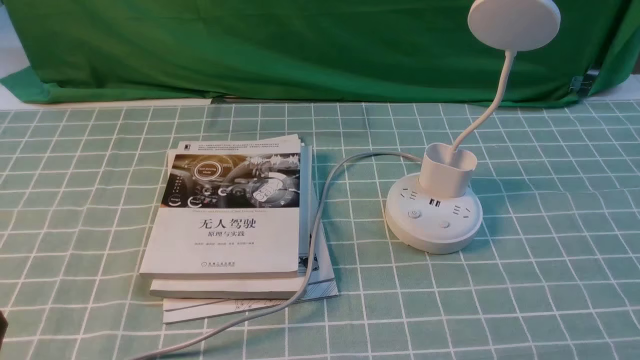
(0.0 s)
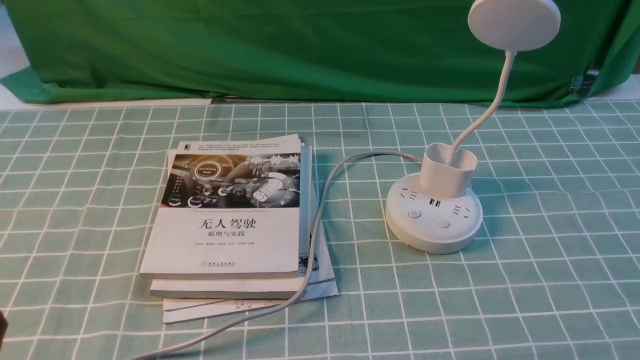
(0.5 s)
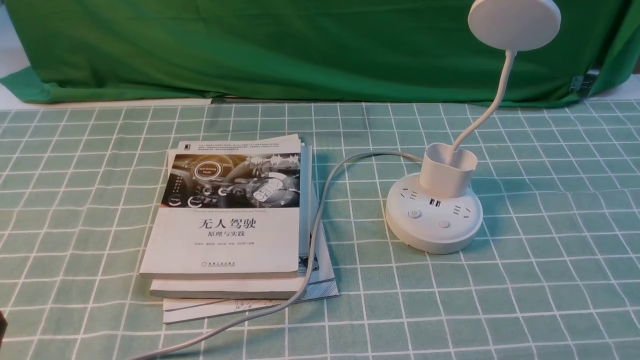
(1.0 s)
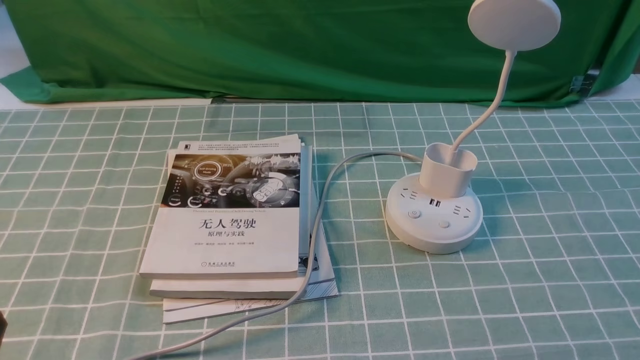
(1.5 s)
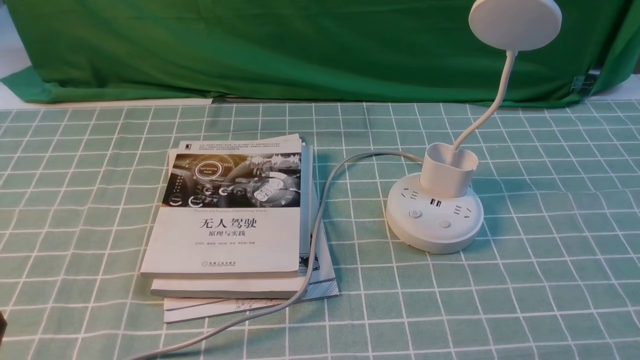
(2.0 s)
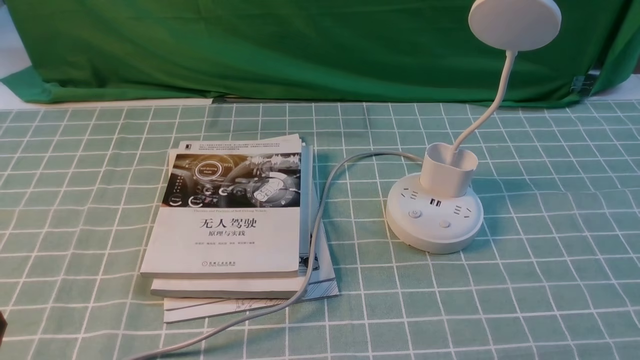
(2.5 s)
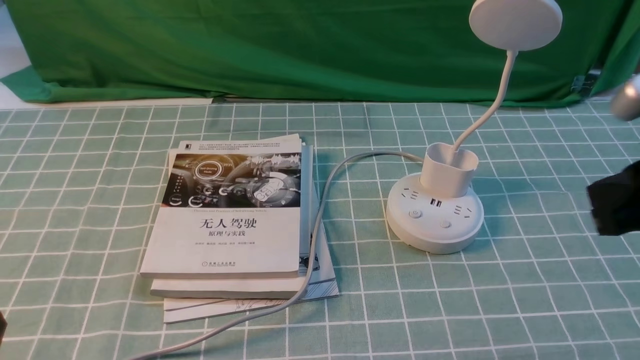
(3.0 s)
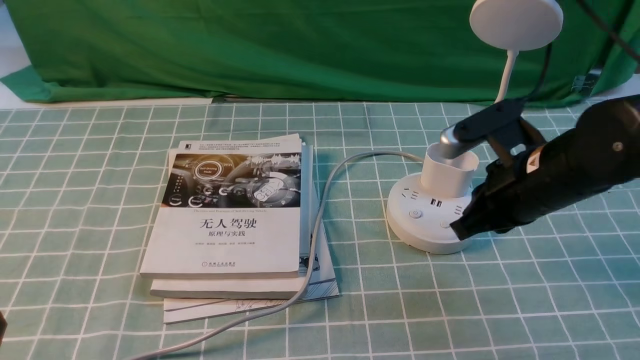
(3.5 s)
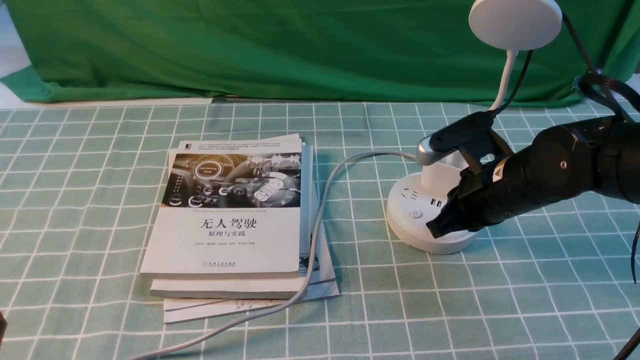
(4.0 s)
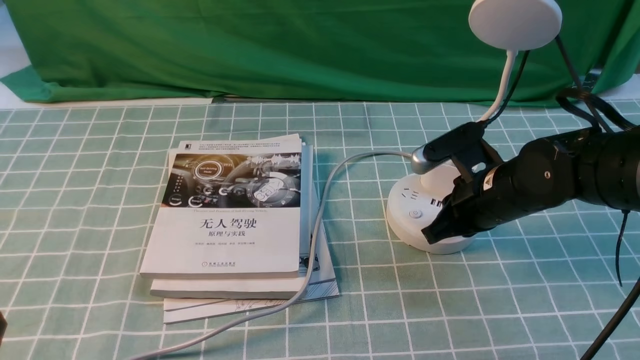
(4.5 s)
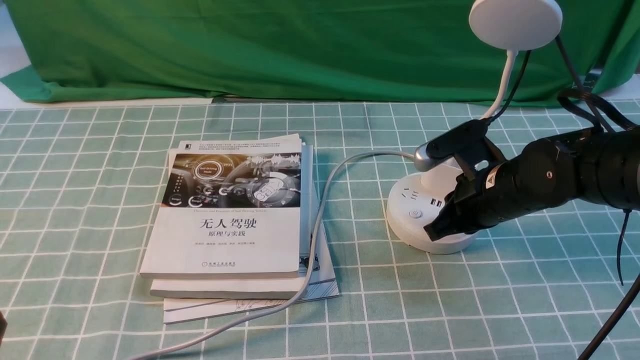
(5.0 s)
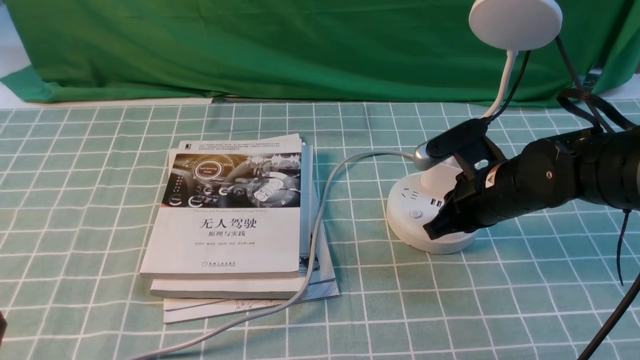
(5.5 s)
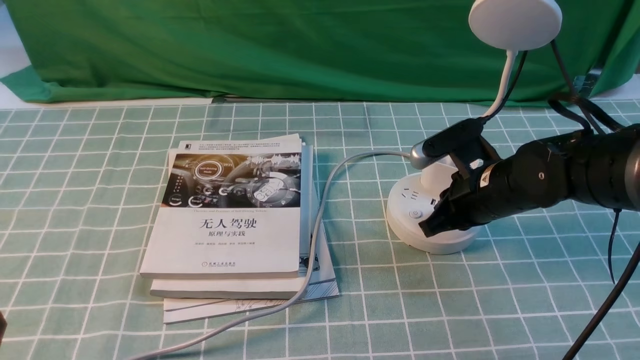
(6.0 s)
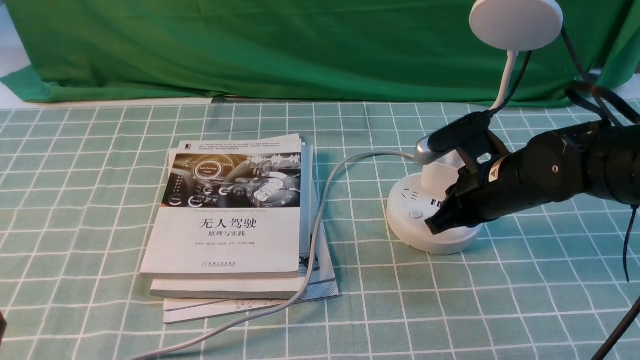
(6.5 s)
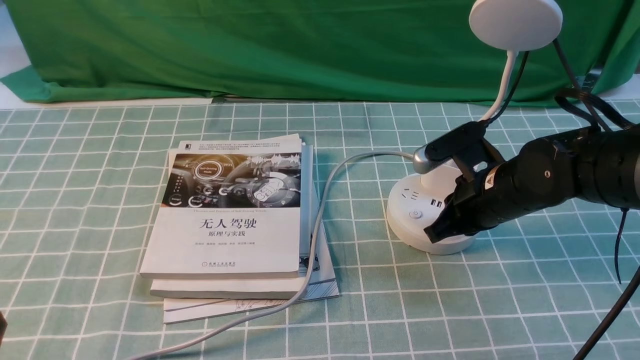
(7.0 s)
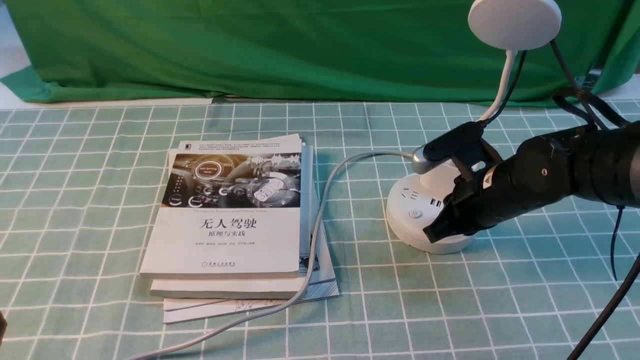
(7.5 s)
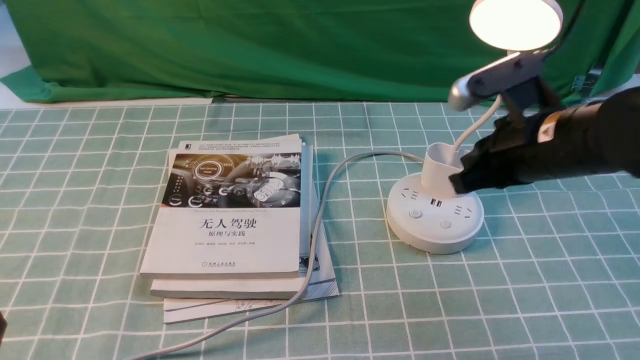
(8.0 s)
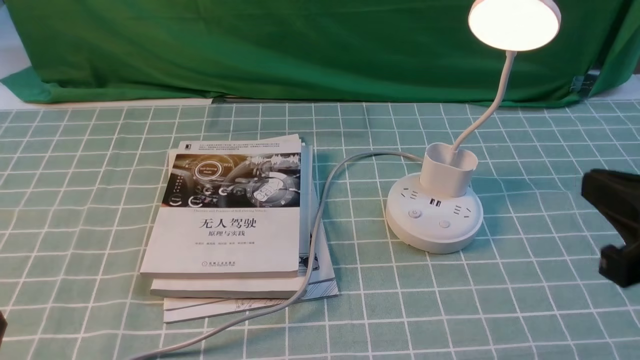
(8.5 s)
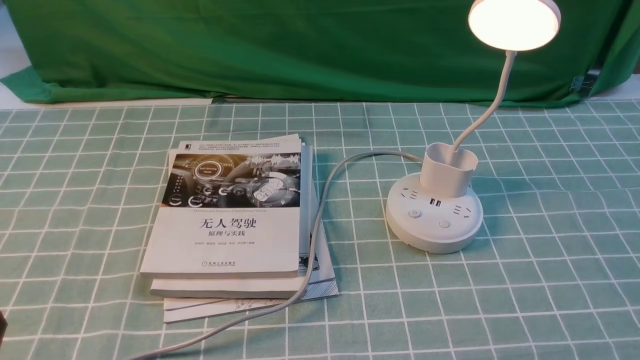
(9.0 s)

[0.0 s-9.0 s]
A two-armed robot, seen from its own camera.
Step, 0.0 to 7.5 s: use the right arm to press the button switch on the lamp holder.
2.0 to 4.5 s: The right gripper travels forward and to the left by approximately 30 cm, and closes up.
4.5 to 7.0 s: The two grippers keep their place.
7.0 to 9.0 s: The right gripper shifts some 30 cm backward and to the right.

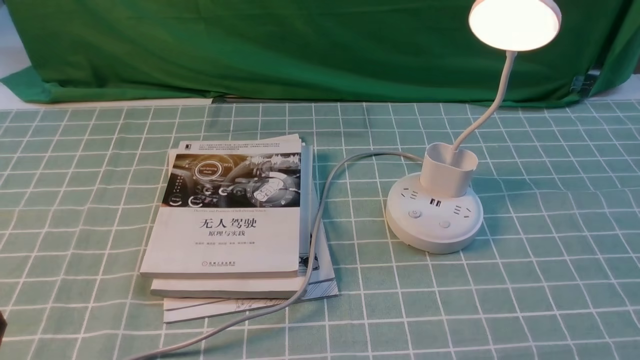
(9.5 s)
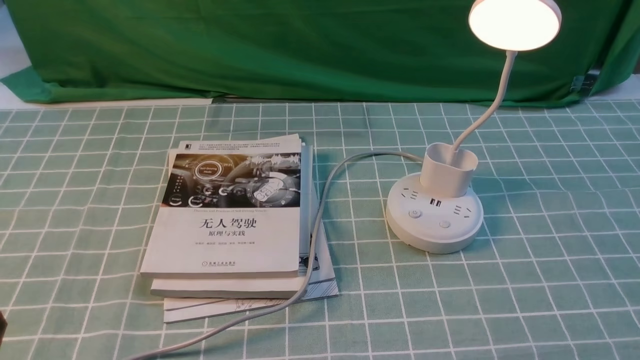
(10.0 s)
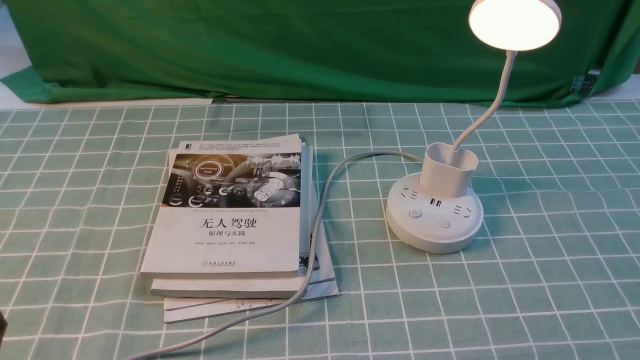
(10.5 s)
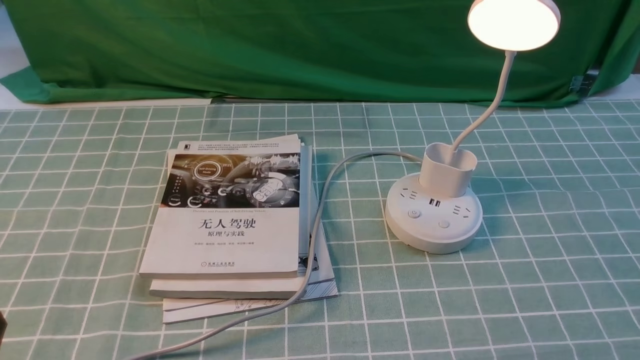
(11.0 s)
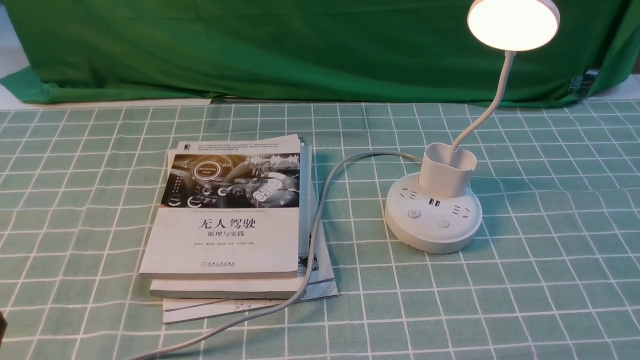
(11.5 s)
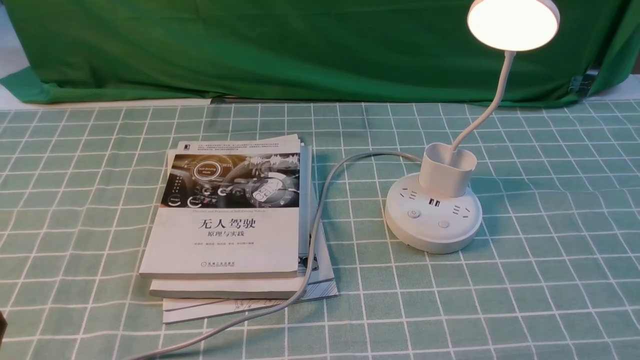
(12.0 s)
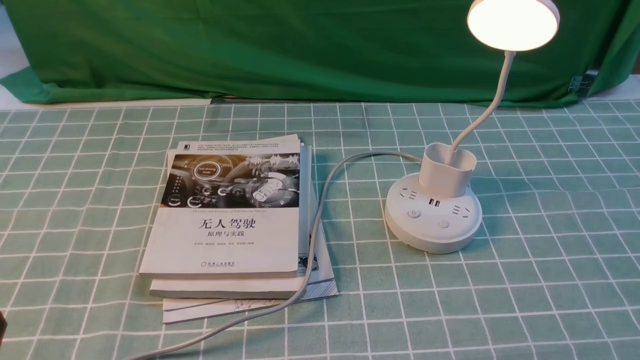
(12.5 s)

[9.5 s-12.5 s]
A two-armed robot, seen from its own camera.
11.0 to 12.5 s: Neither gripper changes place.
